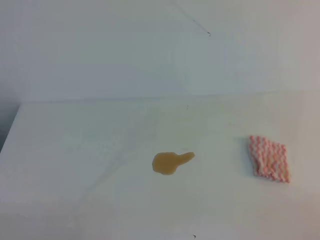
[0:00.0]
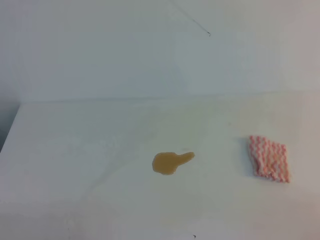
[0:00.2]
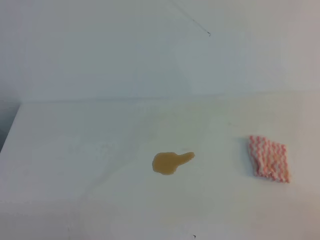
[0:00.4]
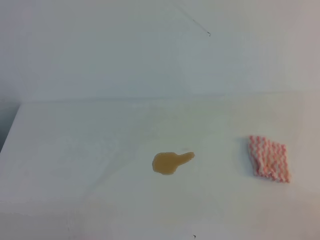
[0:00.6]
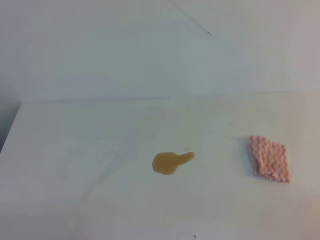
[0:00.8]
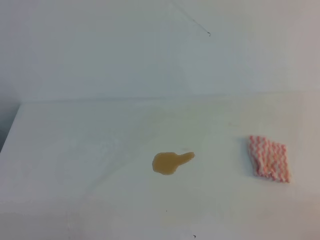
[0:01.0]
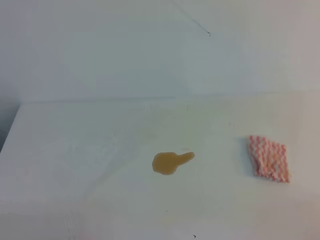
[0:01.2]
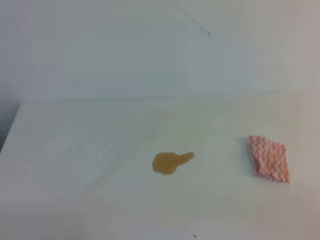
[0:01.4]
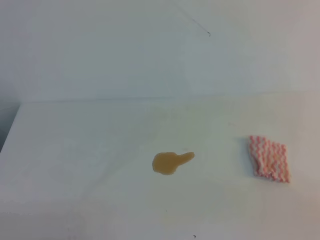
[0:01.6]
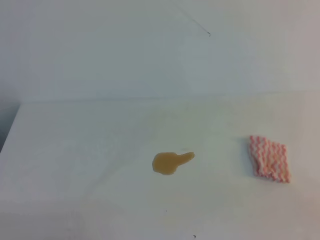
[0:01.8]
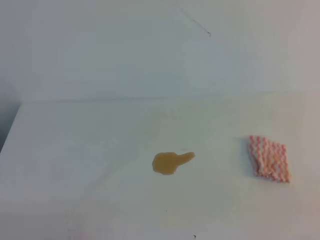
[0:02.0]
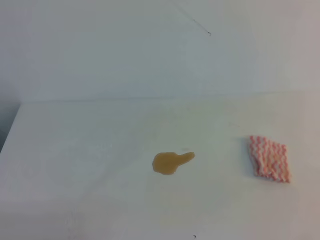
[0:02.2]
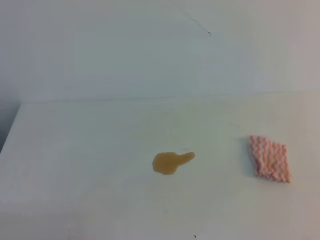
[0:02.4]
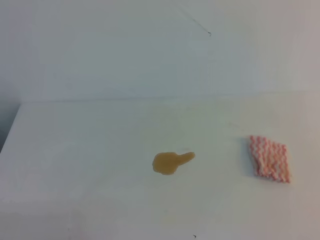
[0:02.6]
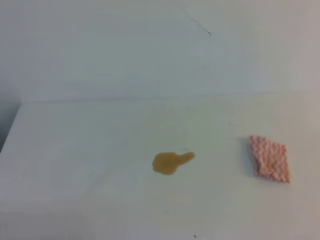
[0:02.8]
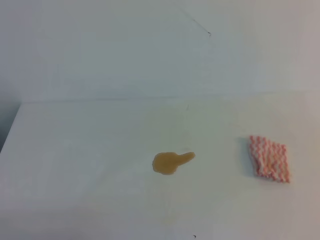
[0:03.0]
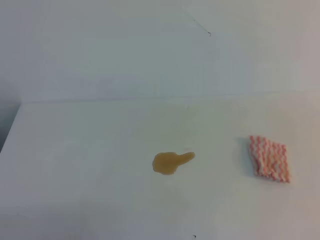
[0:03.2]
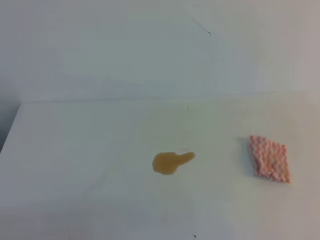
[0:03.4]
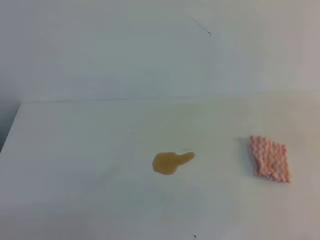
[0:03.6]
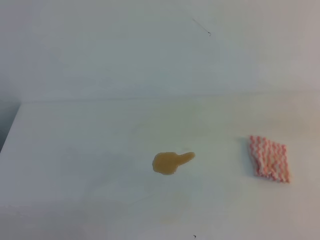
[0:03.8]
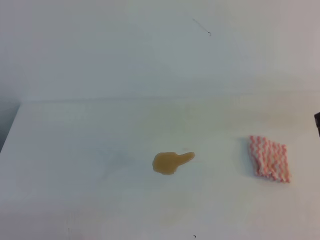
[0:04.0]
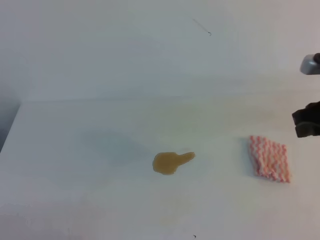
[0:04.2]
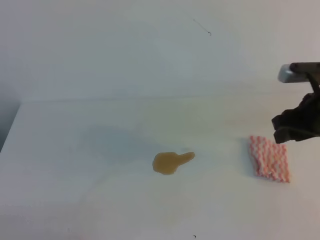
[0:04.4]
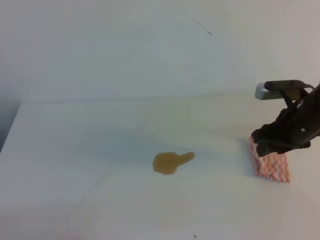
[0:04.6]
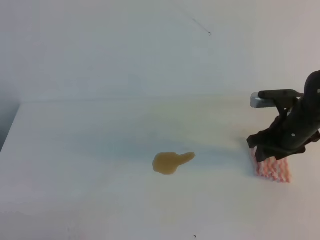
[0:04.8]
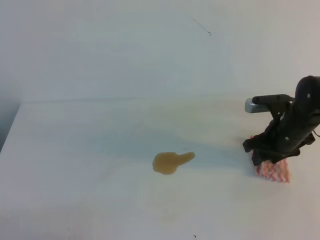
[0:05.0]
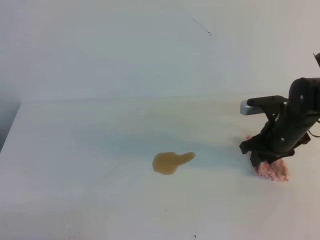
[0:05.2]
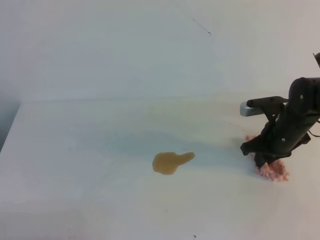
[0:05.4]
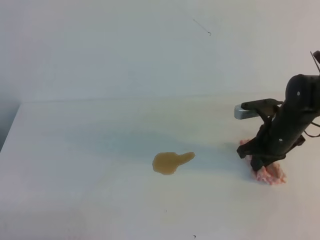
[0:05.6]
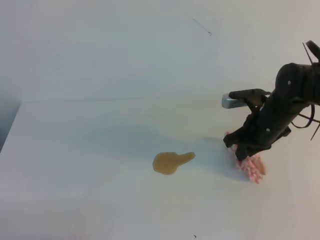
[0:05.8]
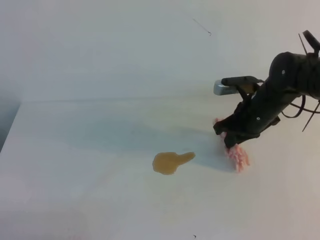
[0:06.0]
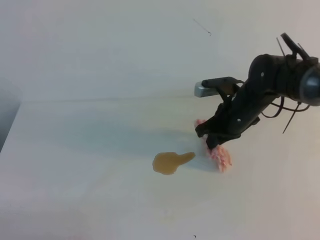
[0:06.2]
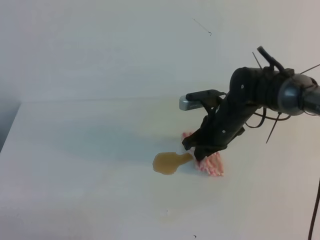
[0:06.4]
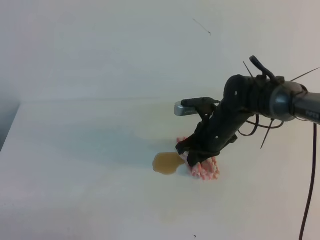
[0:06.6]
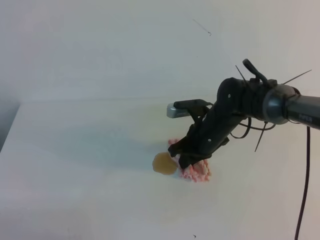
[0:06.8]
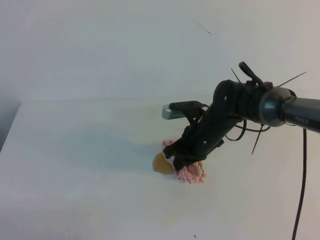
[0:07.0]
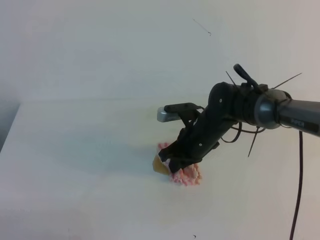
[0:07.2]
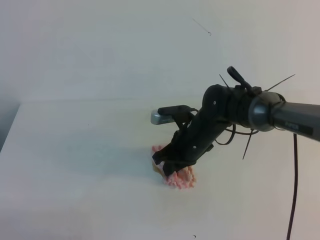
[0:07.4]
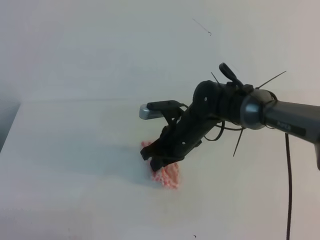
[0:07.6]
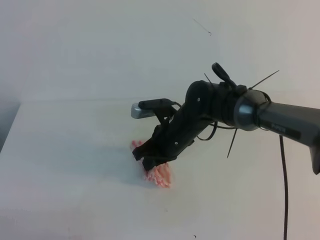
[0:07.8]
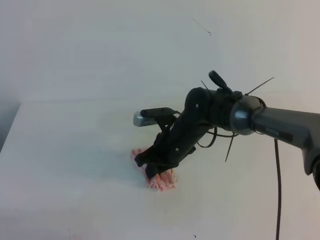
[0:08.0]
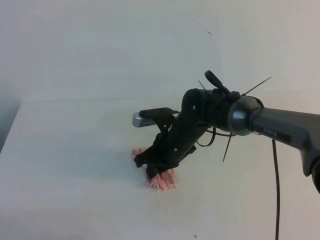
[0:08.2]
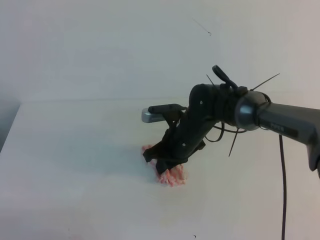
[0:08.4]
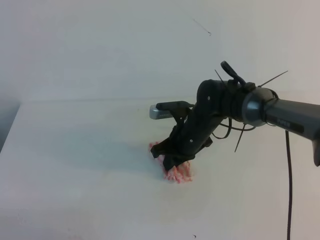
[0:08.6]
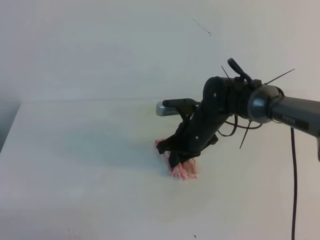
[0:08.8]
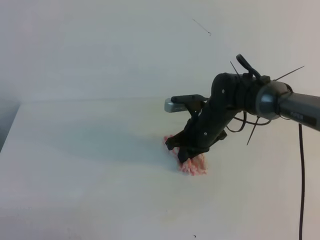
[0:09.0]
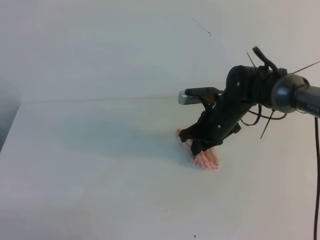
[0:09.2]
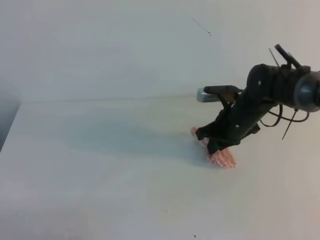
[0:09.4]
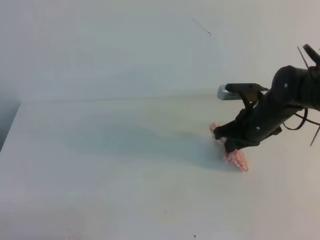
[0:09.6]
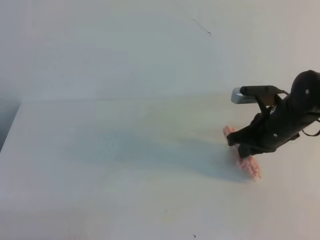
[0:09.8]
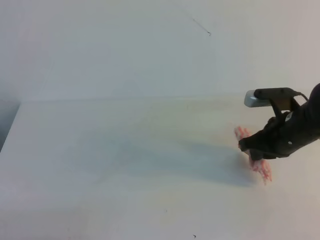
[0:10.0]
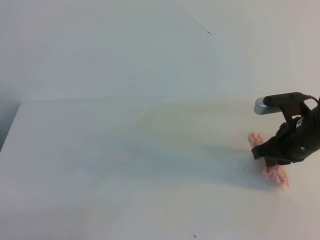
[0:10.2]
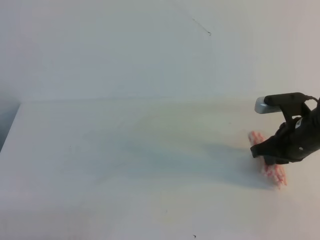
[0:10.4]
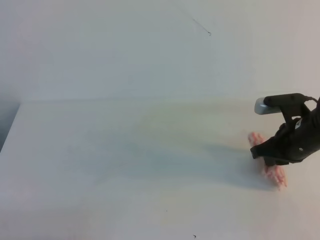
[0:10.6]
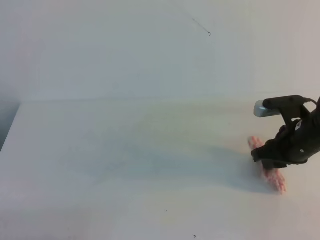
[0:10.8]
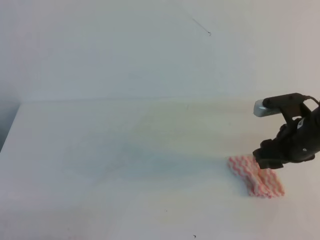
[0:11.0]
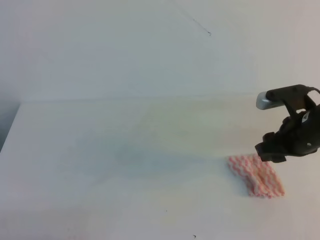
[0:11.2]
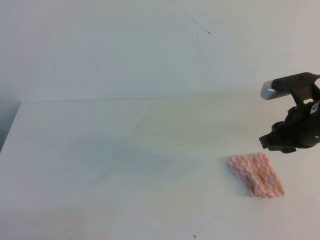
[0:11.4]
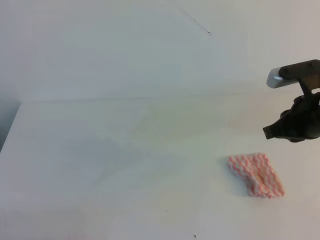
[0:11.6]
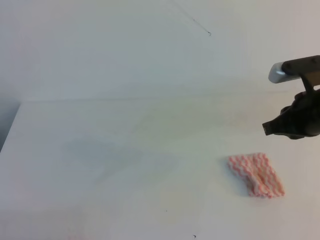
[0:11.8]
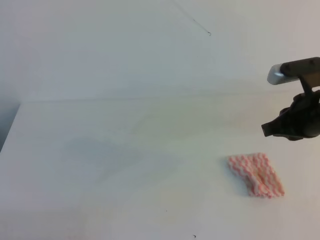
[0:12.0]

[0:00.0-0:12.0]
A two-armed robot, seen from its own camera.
0:03.0 to 0:04.4: The right gripper heads forward, covering some 25 cm, and opens.
0:04.4 to 0:06.0: The right gripper is displaced to the left, downward and forward by some 15 cm, and closes up.
0:06.0 to 0:07.6: The right gripper heads to the left, covering some 15 cm.
0:07.6 to 0:09.0: The right gripper ends up about 5 cm from where it was.
0:09.0 to 0:10.4: The right gripper travels to the right and backward by about 15 cm.
0:10.4 to 0:12.0: The right gripper moves upward, approximately 5 cm, and opens, then closes again.

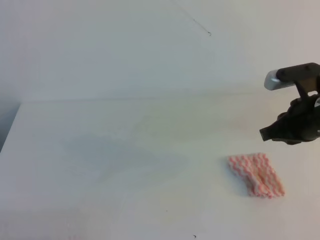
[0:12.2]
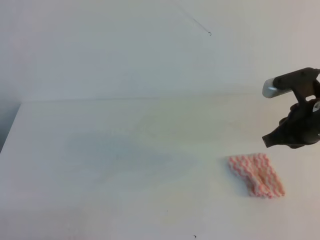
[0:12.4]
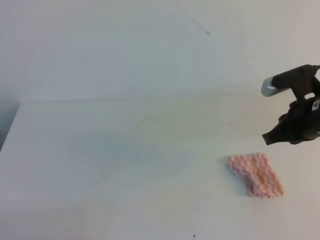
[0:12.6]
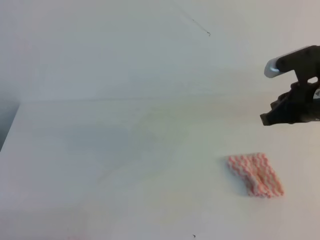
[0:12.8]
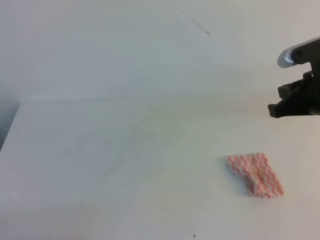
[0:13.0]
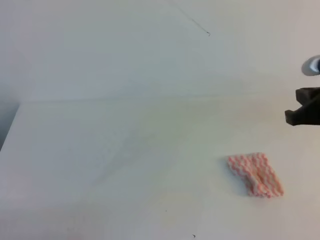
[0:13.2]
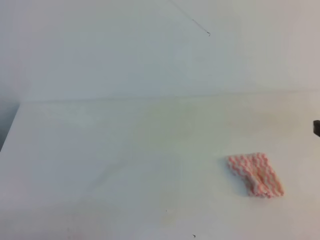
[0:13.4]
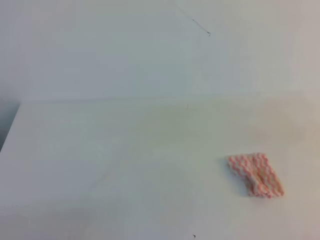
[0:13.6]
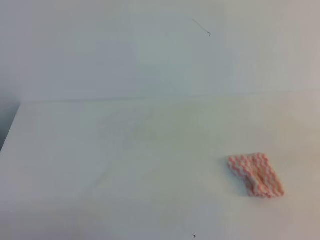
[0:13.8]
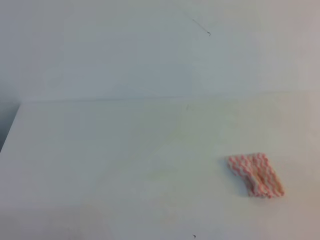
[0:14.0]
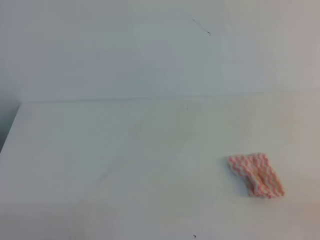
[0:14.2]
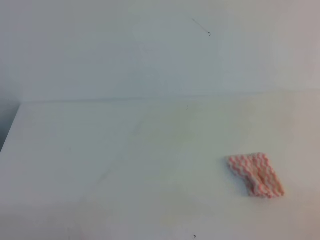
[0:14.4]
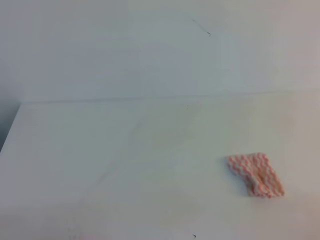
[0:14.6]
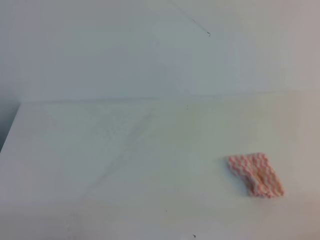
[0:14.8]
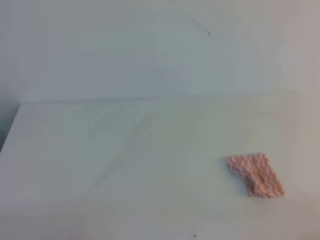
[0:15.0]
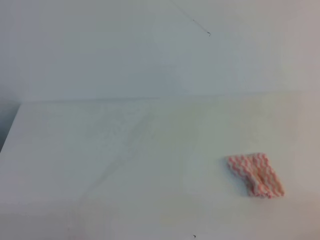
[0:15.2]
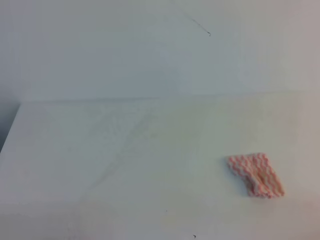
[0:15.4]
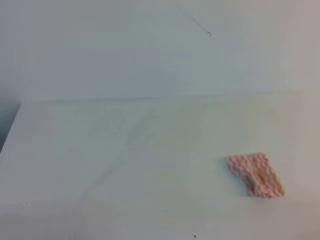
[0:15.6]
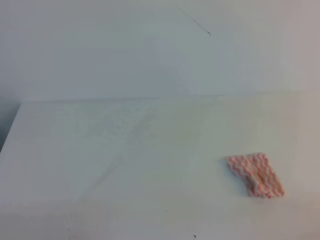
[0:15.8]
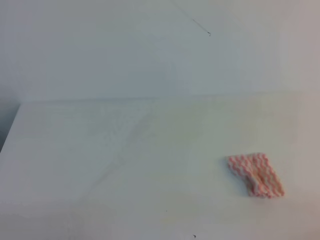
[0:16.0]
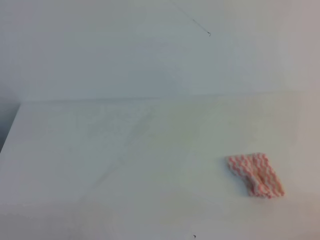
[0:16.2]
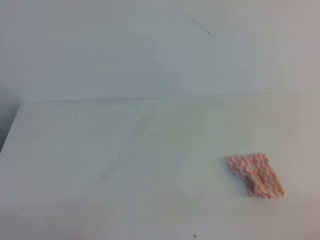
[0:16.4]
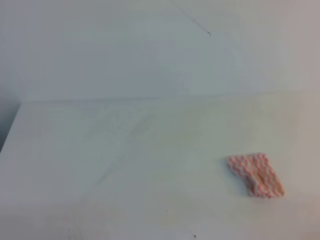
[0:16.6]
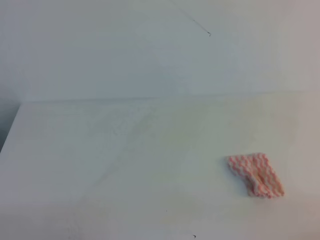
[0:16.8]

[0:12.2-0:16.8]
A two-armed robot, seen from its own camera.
0:12.2 to 0:13.8: The right gripper is displaced backward and to the right by about 20 cm.
0:15.2 to 0:16.8: The two grippers keep their place.
